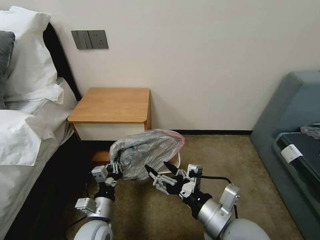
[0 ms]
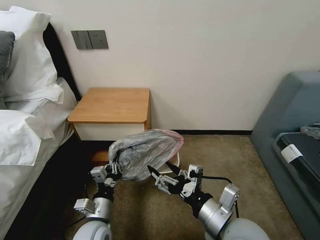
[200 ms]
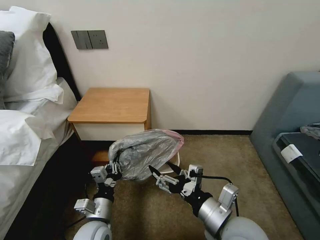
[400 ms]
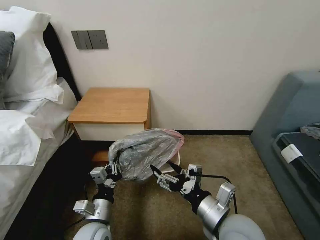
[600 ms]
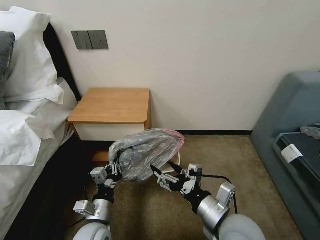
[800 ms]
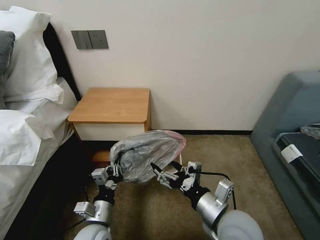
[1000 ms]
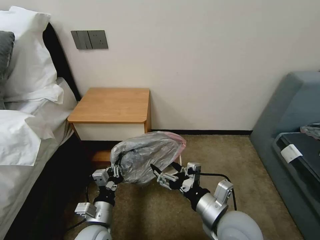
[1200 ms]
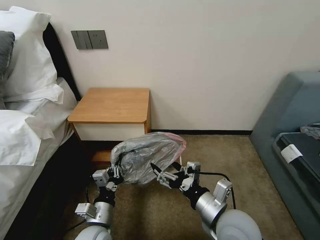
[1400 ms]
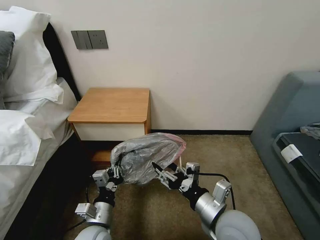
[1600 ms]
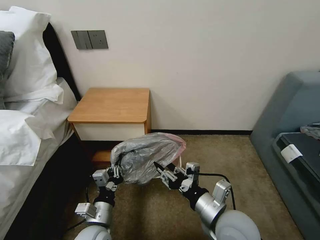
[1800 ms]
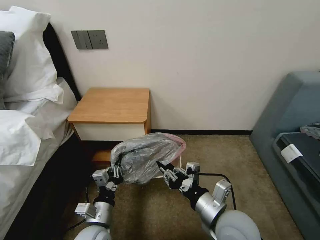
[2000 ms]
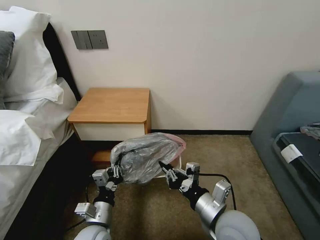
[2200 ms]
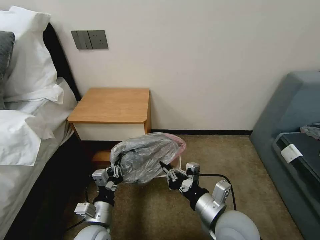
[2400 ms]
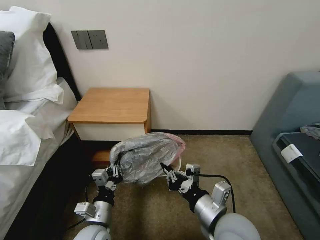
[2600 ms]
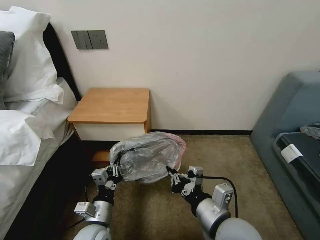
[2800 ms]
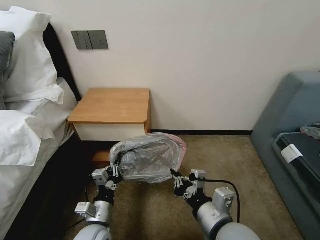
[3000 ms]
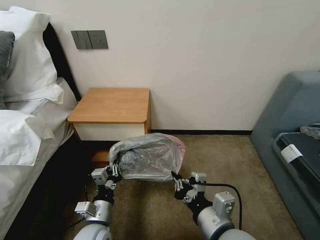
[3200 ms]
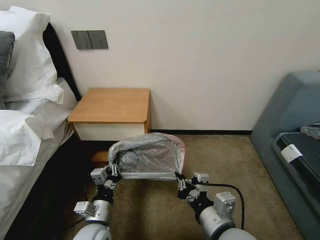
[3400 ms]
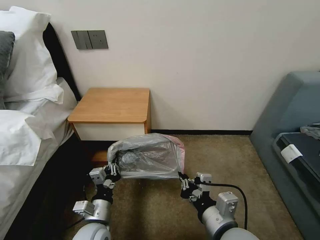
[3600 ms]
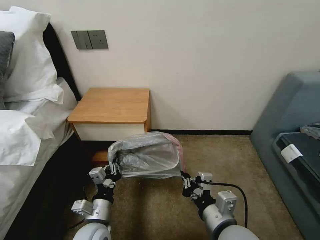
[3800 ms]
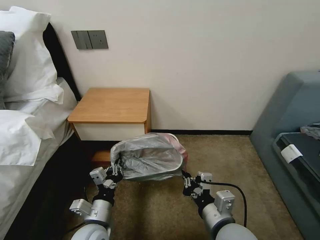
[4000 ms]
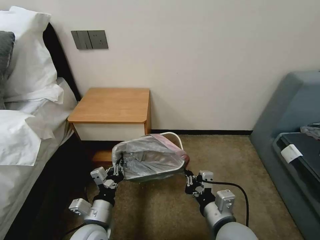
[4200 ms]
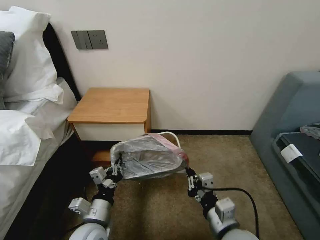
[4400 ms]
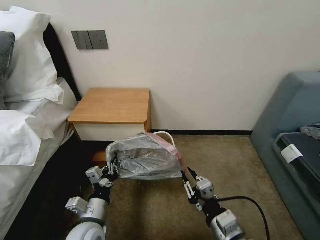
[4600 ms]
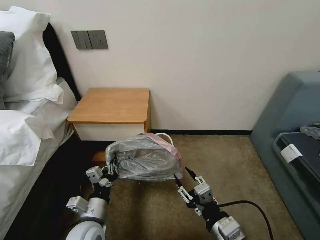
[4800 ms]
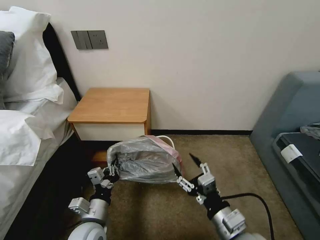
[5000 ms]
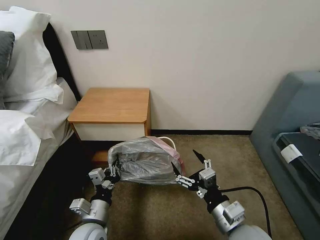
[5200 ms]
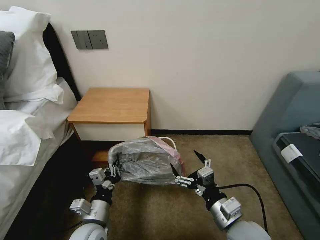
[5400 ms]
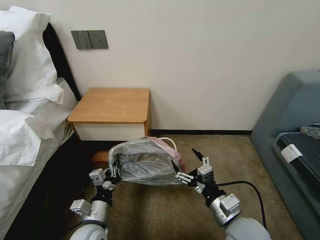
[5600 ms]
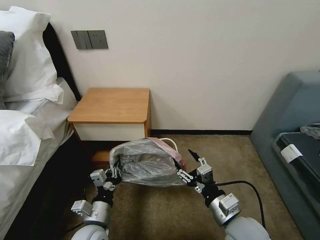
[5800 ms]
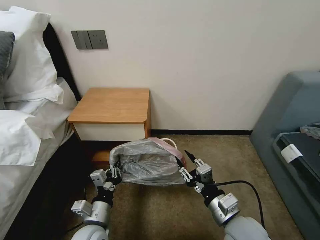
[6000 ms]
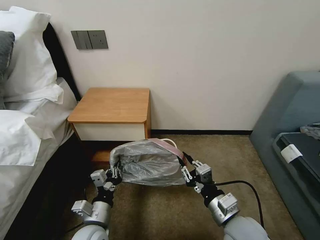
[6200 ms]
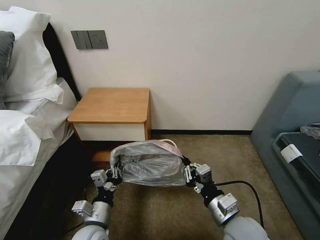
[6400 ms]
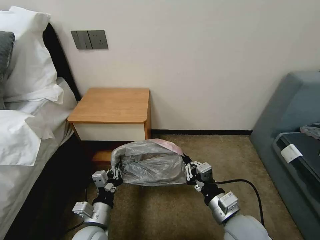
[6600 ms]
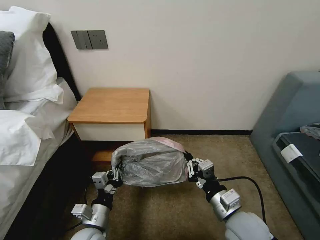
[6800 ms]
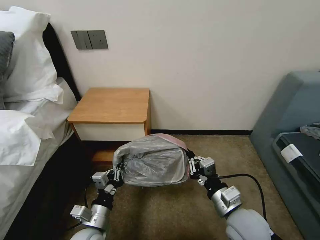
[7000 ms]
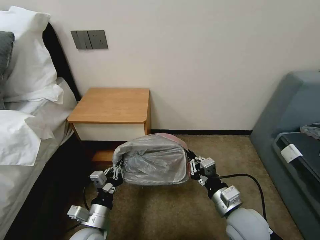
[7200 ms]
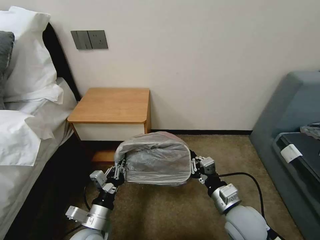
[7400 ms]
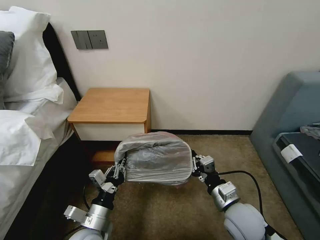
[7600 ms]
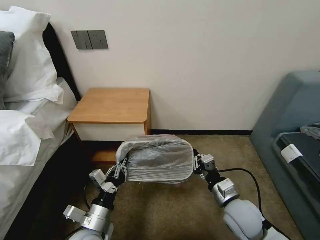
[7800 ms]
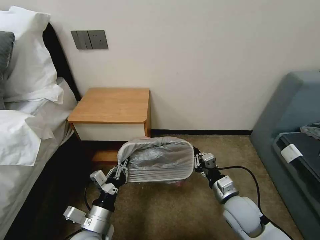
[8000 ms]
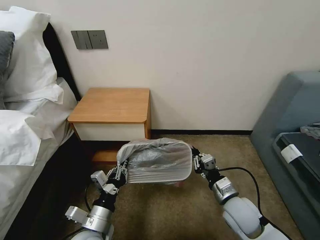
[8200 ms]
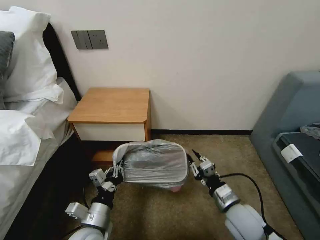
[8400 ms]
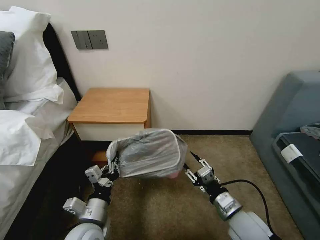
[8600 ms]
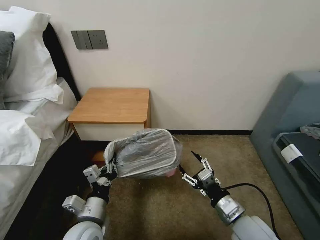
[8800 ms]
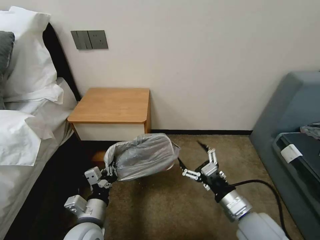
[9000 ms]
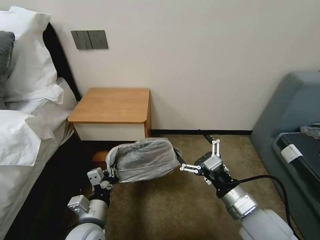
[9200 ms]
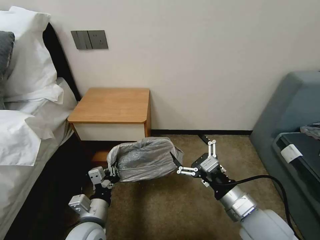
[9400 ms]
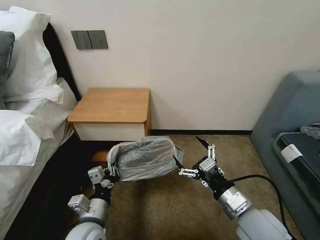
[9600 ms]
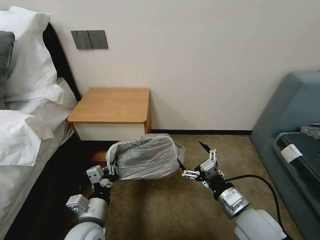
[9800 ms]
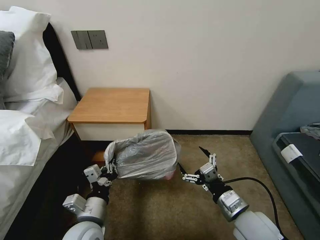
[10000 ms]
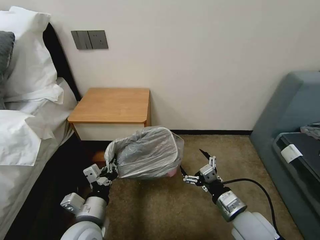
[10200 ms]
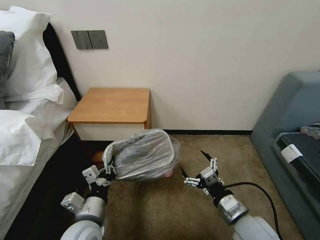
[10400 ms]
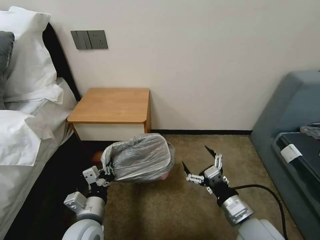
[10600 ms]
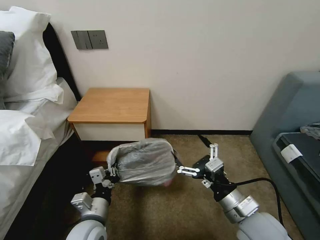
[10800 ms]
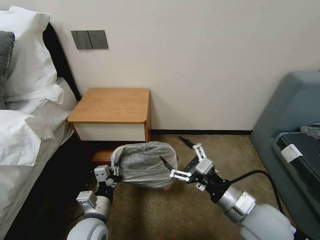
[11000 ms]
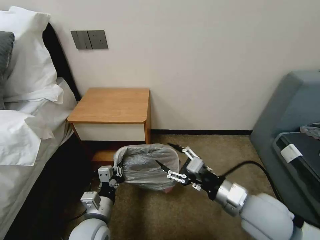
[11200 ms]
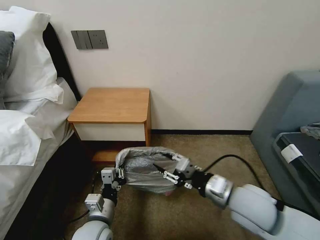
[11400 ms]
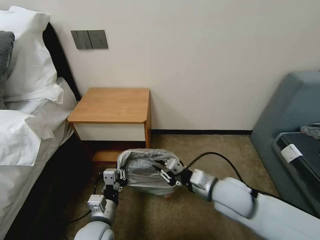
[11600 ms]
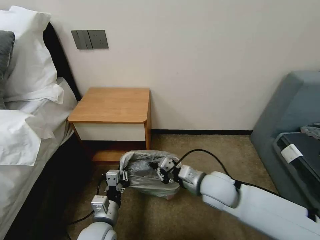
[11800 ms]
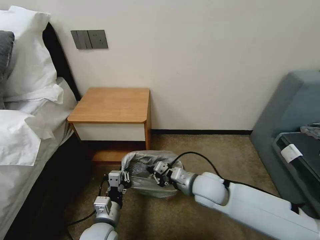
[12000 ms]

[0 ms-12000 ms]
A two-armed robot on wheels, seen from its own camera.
Task of the whole recording: Pick up the garbage bag from the table and place it over the trash can.
0 ms to 1600 ms: The grippers make only small movements.
1600 ms to 3000 ms: The right gripper closes up.
3000 ms to 4400 ms: The right gripper moves downward, about 5 cm.
4400 ms to 6000 ms: The right gripper opens up.
6000 ms to 7600 ms: The right gripper closes its fingers.
7600 ms to 9000 ms: The right gripper opens its fingers.
9000 ms to 10400 ms: The grippers move only a little.
10400 ms to 12000 ms: The left gripper is displaced downward by about 5 cm; the right gripper goes some 15 cm forward and to the left, and closes.

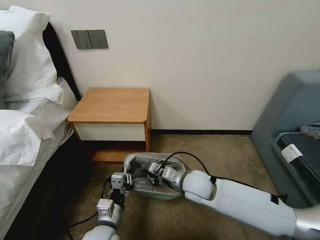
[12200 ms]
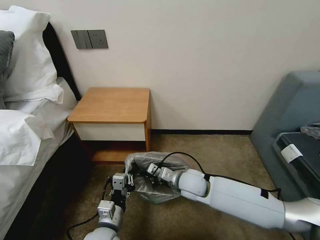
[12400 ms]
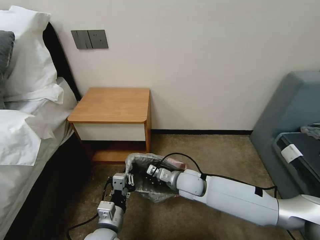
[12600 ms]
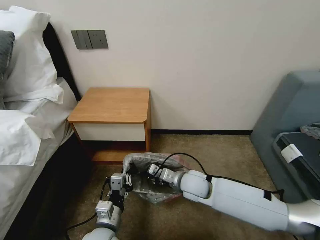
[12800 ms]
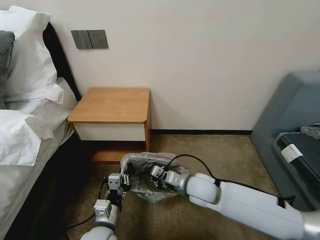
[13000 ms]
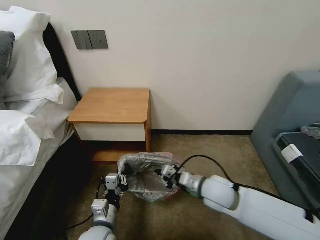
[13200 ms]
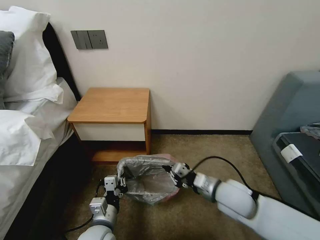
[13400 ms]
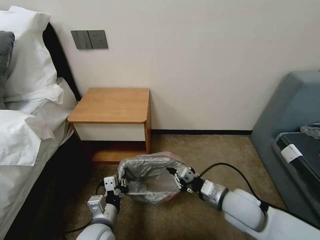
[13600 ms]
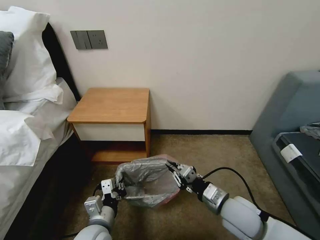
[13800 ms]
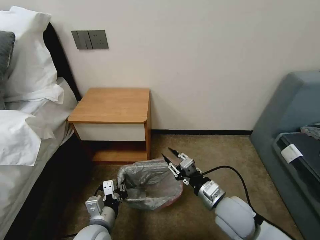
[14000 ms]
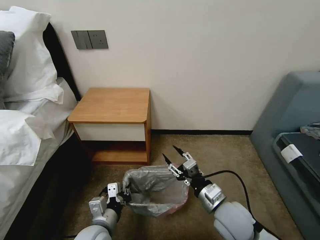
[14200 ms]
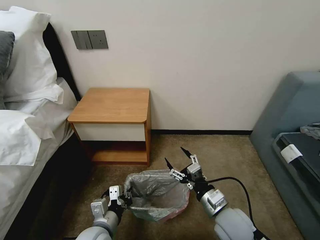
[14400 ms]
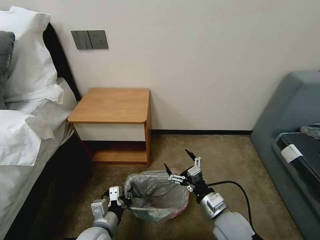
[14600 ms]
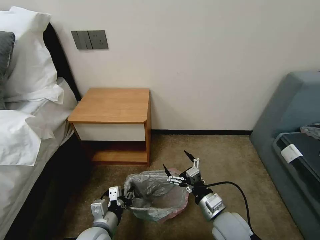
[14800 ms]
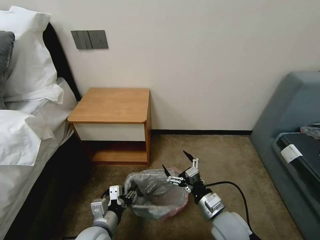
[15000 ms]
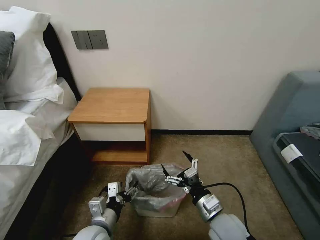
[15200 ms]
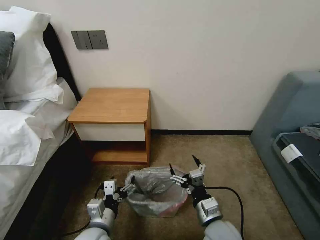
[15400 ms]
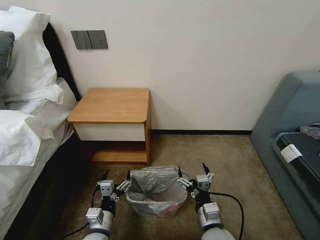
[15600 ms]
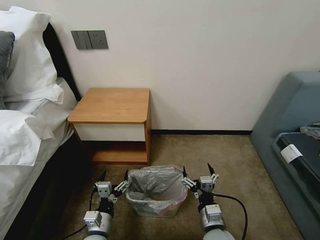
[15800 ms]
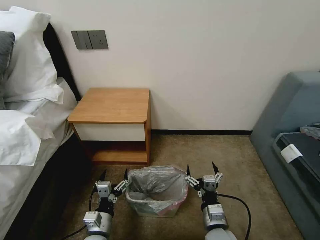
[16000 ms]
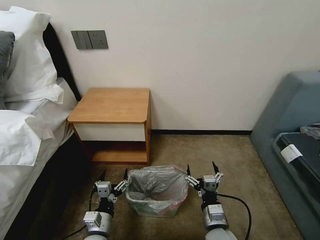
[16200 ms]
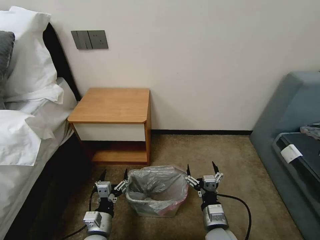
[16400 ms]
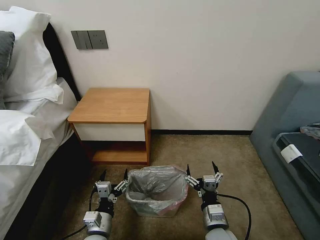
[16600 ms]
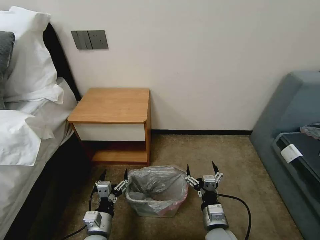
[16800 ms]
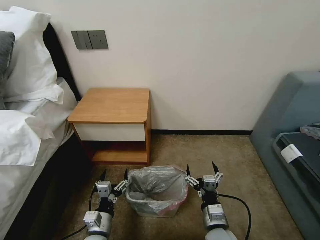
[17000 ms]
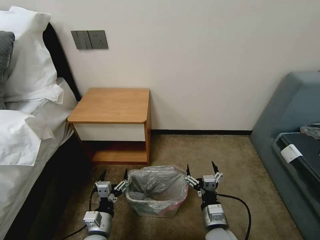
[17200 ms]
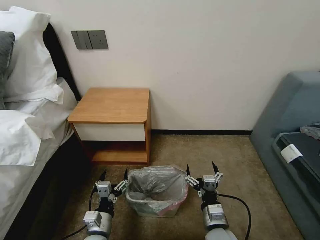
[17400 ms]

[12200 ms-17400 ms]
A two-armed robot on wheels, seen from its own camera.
Task of the whole recording: Pick up the garbage bag from the table and place it over the trash can.
12200 ms to 14000 ms: The right gripper heads backward and to the right, covering roughly 10 cm.
14000 ms to 15600 ms: The right gripper is displaced downward and backward by about 10 cm, and opens up. The left gripper goes roughly 5 cm downward, and opens its fingers.
15600 ms to 17400 ms: There are only small adjustments of the grippers.

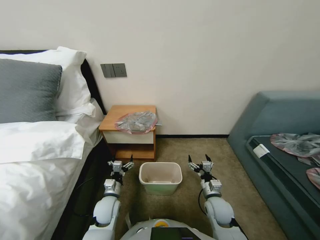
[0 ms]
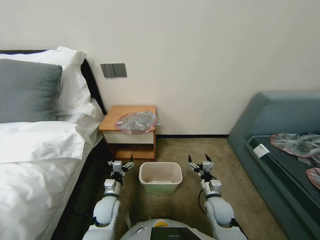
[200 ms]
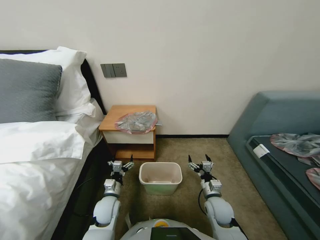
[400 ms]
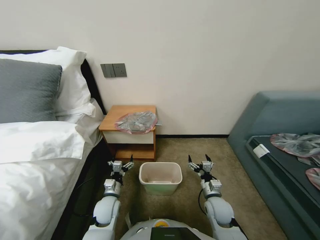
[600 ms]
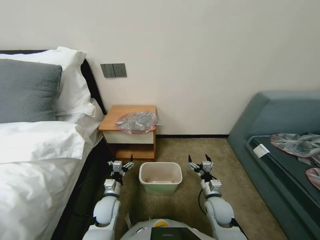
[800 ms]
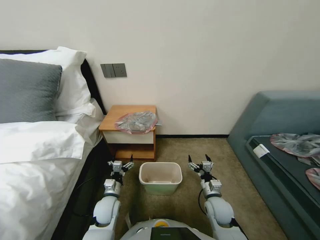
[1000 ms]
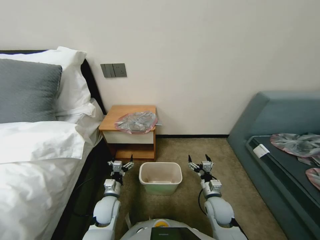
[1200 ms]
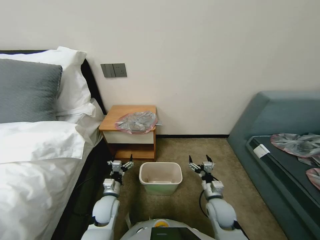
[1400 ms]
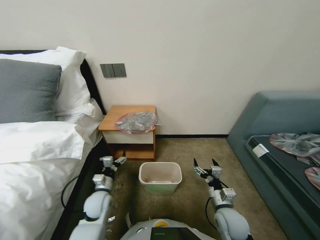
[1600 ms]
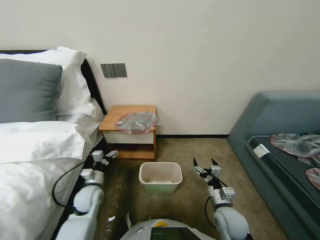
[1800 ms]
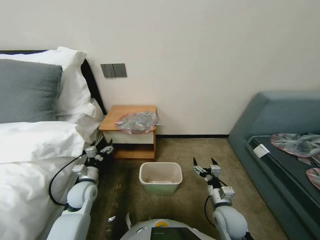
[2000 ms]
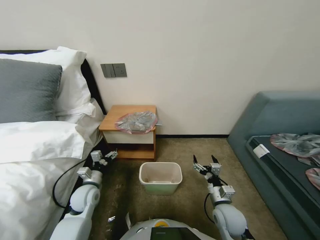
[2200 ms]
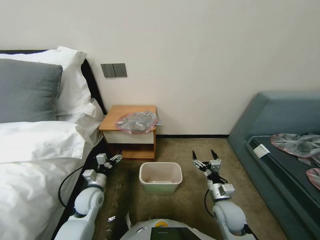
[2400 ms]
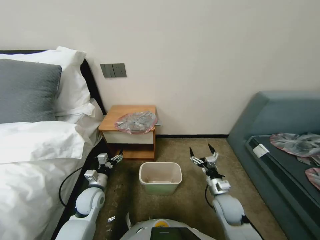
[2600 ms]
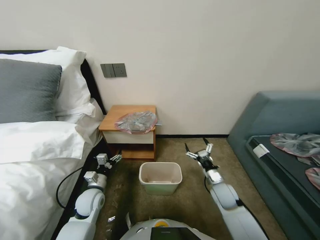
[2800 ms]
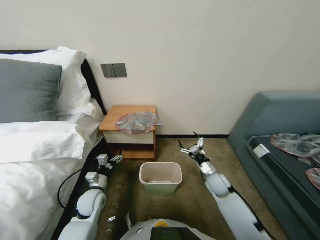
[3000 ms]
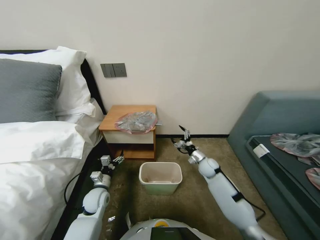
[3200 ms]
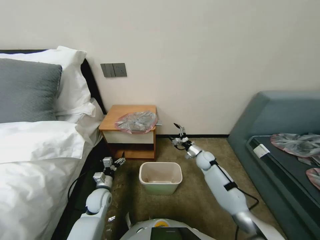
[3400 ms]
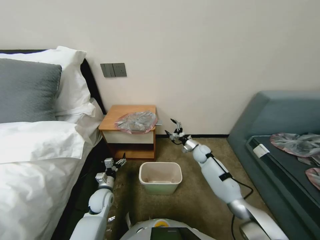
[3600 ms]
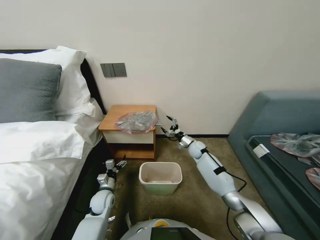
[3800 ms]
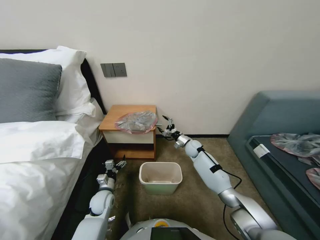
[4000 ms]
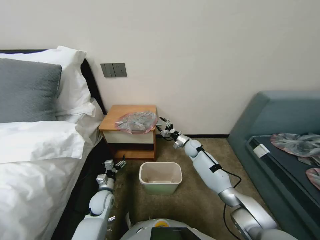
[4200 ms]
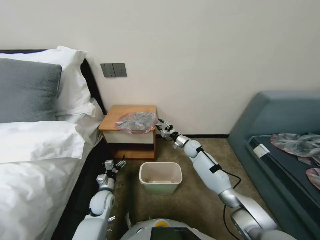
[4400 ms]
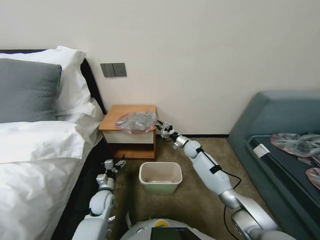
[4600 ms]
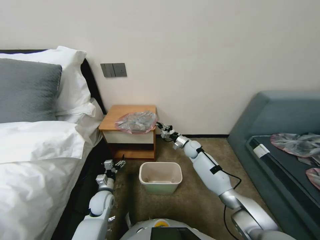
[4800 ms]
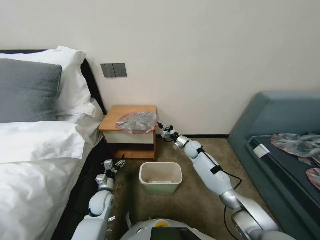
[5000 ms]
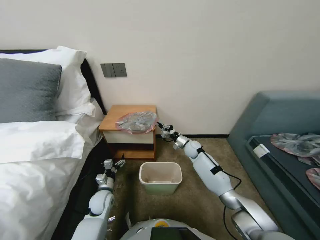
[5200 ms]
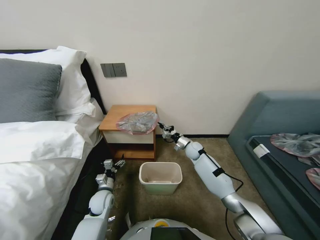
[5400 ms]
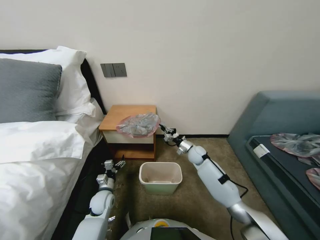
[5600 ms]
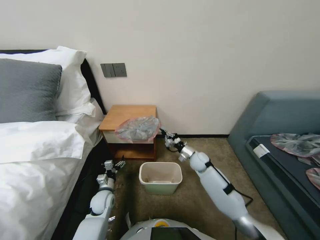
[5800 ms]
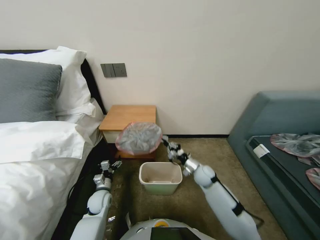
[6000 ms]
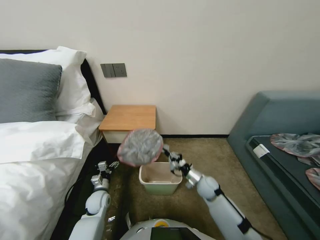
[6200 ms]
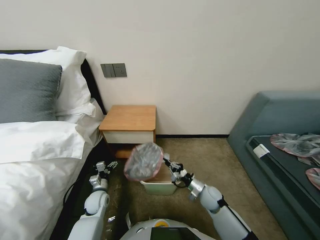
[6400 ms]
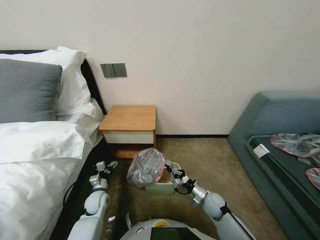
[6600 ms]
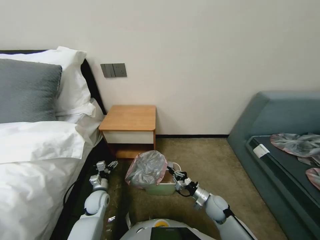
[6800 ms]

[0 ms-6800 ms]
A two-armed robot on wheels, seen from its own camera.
Task of the whole recording: Pick up the garbage bag from the table and place it over the trash can.
1400 ms to 2800 ms: The left gripper moves to the left, some 5 cm.
2800 ms to 4000 ms: The left gripper is displaced downward by some 5 cm. The right gripper is displaced forward by roughly 25 cm.
4000 ms to 5400 ms: The right gripper closes.
5400 ms to 6800 ms: The right gripper travels backward by approximately 25 cm.
